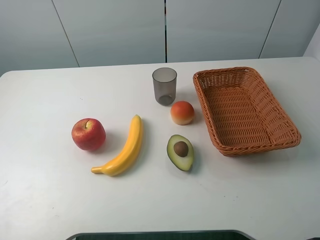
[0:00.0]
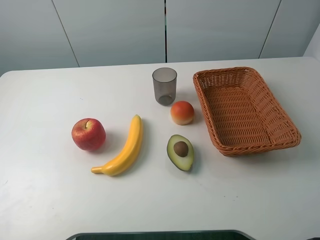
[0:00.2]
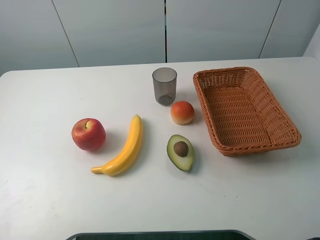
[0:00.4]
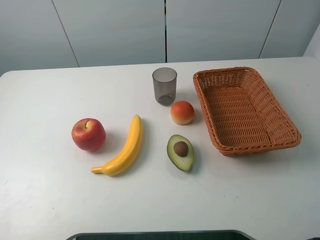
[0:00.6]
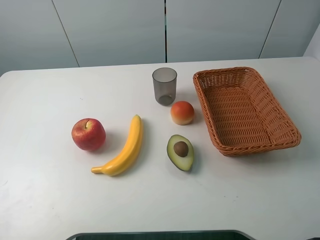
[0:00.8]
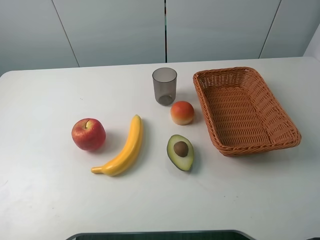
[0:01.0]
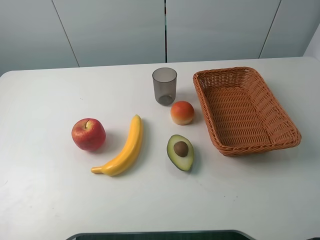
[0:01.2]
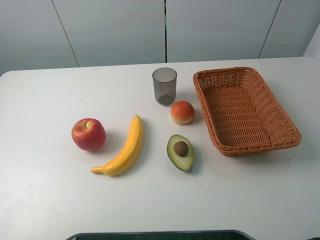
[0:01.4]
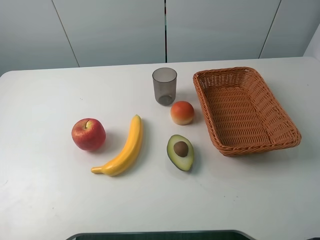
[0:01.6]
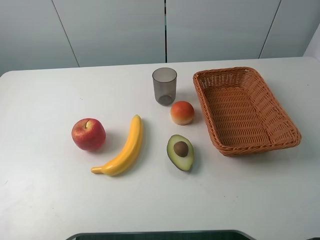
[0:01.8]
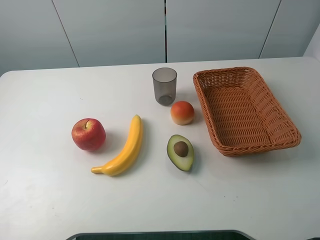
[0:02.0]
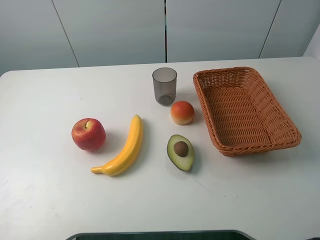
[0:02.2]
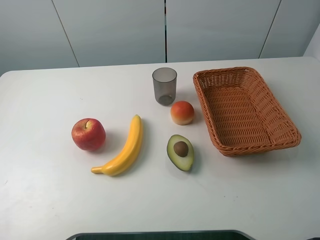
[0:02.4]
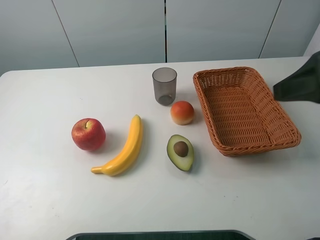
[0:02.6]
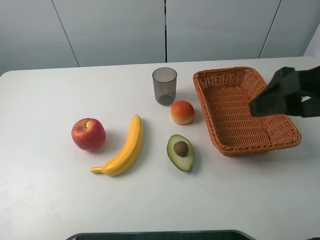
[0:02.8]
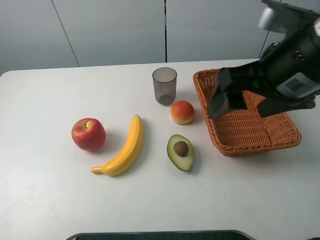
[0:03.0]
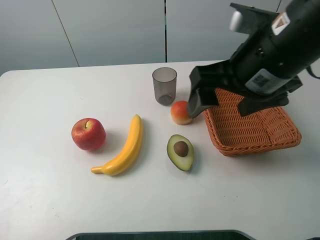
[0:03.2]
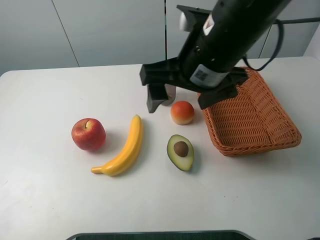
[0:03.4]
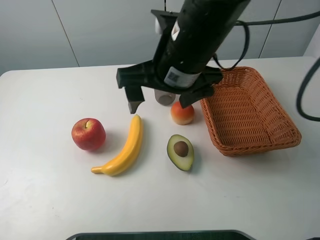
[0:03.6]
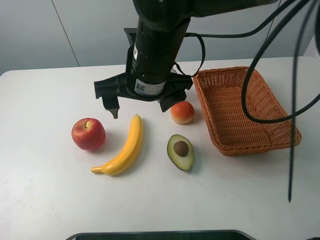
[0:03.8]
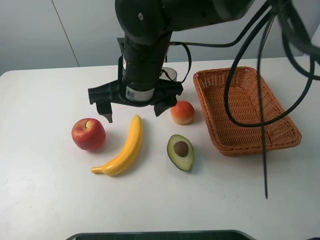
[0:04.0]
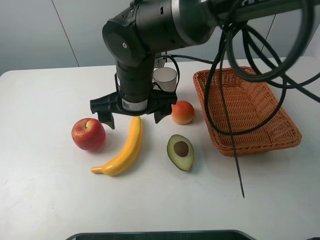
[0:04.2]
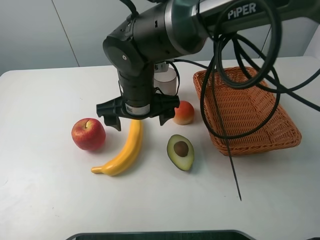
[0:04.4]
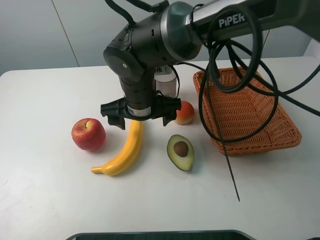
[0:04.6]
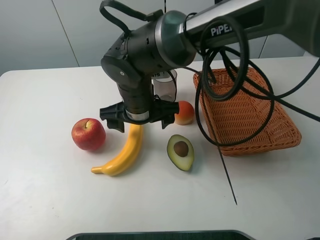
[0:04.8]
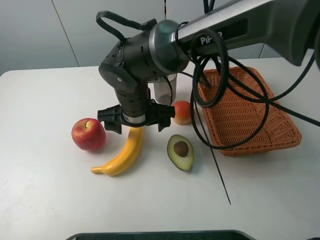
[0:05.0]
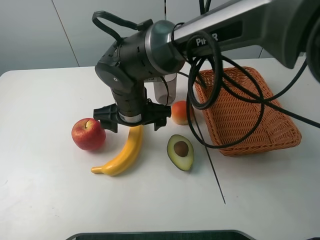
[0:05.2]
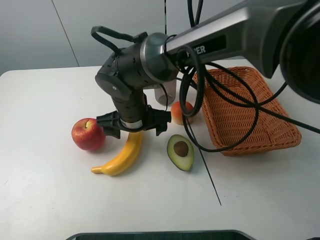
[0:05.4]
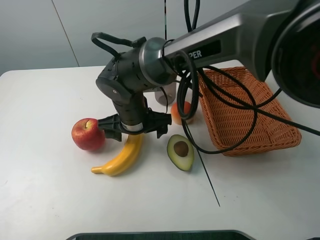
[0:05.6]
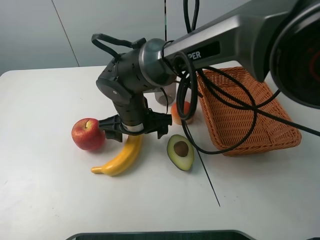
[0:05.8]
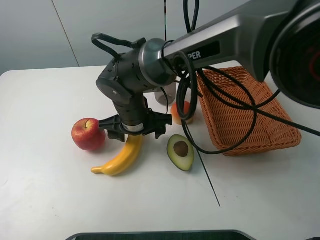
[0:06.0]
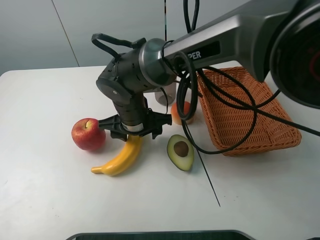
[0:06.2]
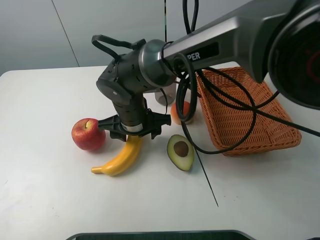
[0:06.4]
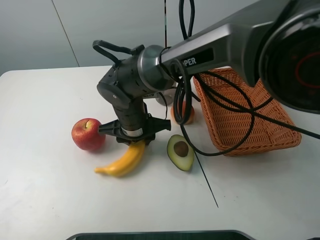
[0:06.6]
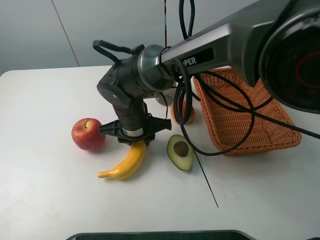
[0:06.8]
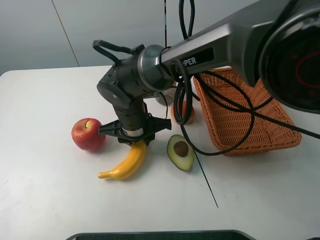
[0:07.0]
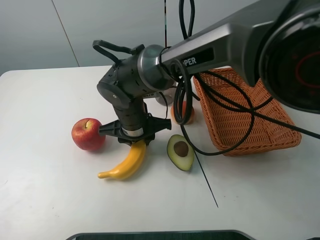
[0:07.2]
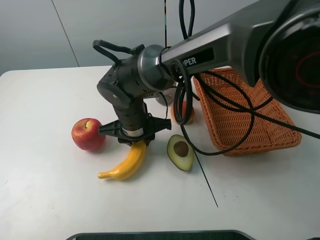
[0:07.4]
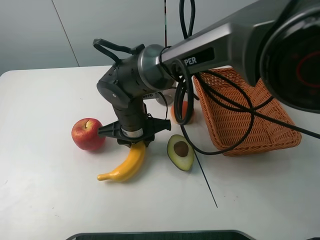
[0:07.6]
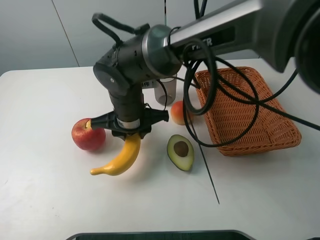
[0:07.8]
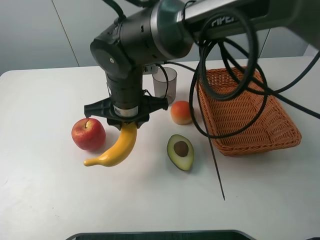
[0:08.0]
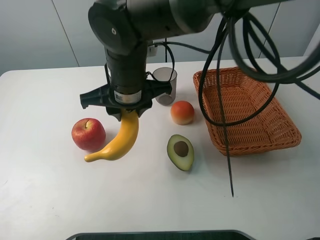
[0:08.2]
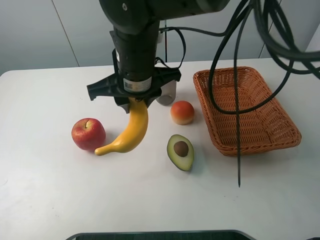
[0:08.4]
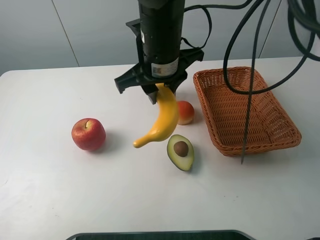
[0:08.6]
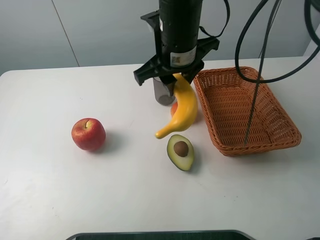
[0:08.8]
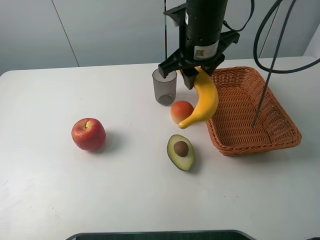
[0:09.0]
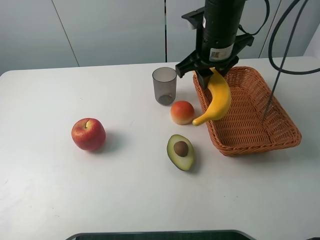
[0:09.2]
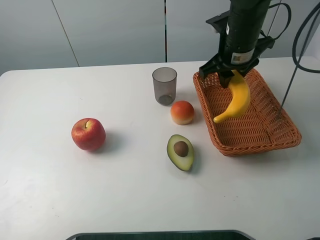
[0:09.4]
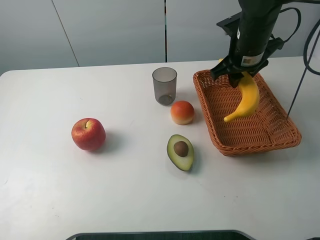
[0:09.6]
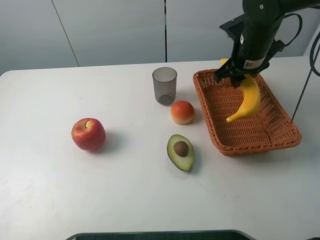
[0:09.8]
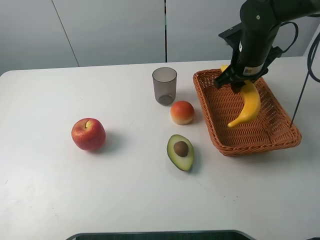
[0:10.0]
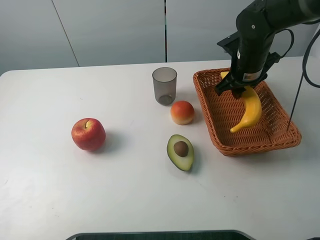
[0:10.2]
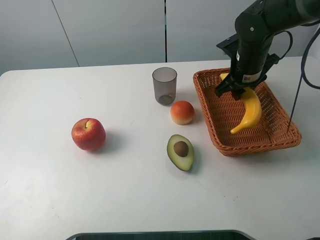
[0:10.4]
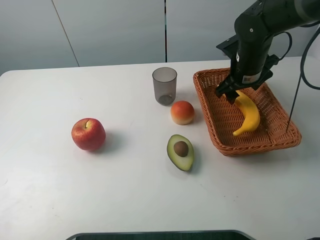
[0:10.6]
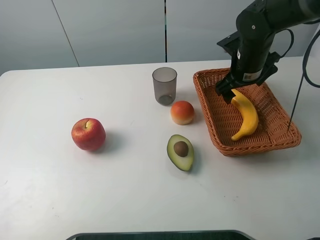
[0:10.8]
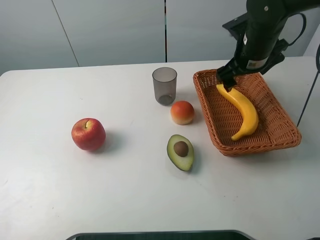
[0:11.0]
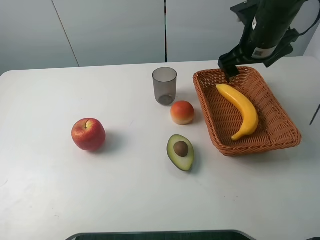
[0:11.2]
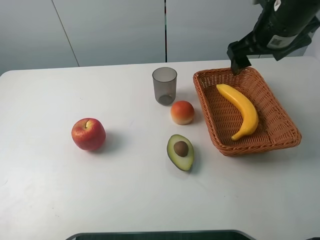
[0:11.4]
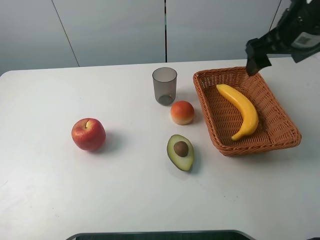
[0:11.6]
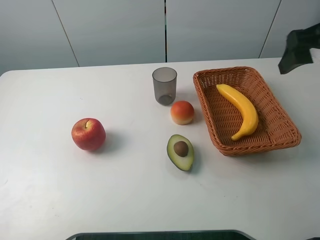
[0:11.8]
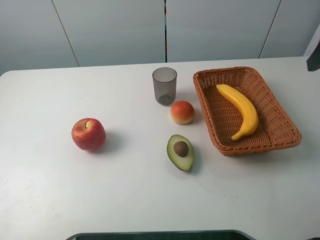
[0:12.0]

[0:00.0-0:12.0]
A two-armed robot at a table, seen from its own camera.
Task of the whole recording: randomly pick up an item from the table and put it in the basket.
Step, 0.0 to 6.6 s: Grasp the banana with the right gripper.
Step, 6.8 to 11.0 s: Place the banana into the basket with the right gripper.
0.0 to 1.6 s: Both grippers stay put.
1.6 to 3.0 s: The right gripper shifts approximately 25 cm forward and to the left.
3.0 to 4.4 s: The right gripper is displaced to the left, downward and forward by some 25 cm.
4.4 to 6.0 s: The right gripper travels downward by roughly 5 cm.
6.0 to 7.6 s: The right gripper closes up.
7.6 to 9.0 s: The right gripper is displaced upward and to the right by roughly 20 cm.
9.0 to 10.4 s: The right gripper travels to the right and downward by some 15 cm.
10.4 to 12.0 s: The right gripper heads upward, backward and to the right, covering some 25 cm, and opens up.

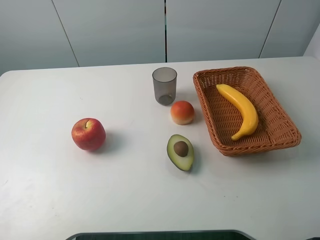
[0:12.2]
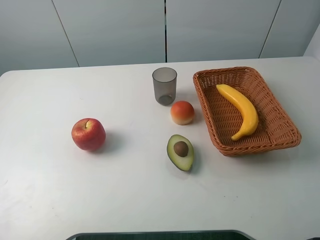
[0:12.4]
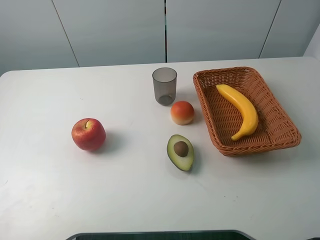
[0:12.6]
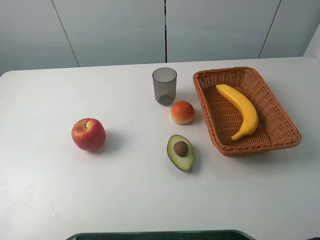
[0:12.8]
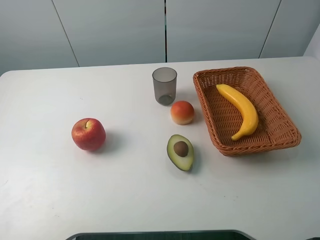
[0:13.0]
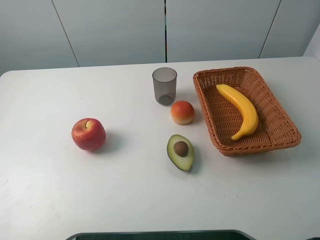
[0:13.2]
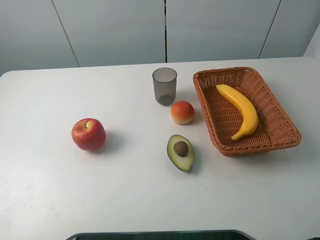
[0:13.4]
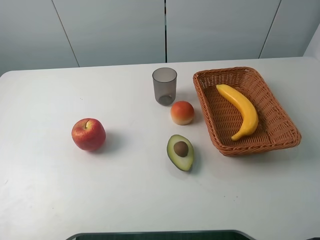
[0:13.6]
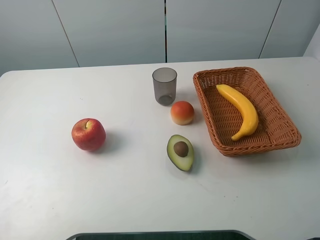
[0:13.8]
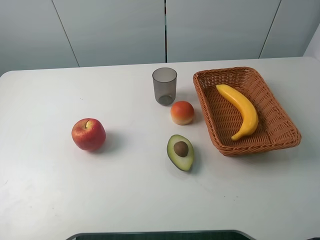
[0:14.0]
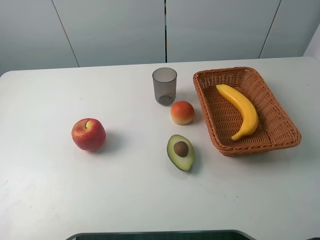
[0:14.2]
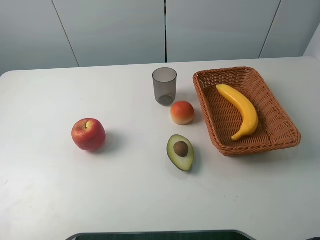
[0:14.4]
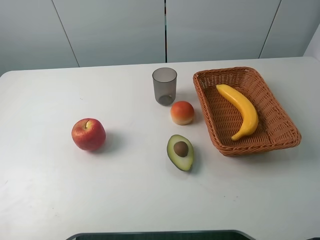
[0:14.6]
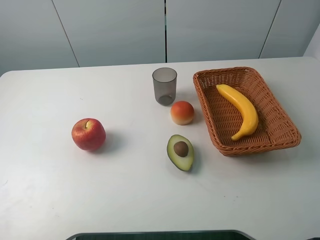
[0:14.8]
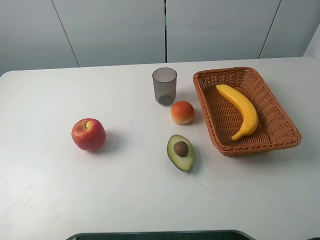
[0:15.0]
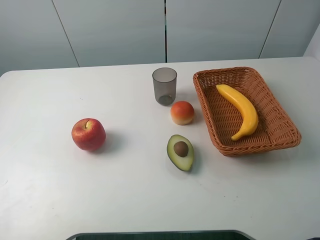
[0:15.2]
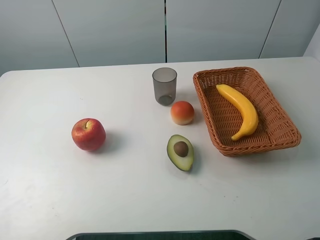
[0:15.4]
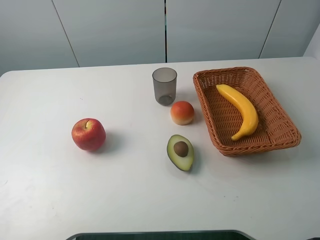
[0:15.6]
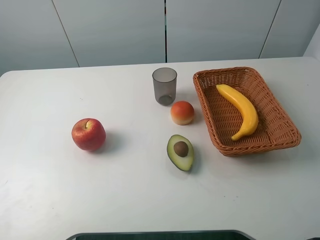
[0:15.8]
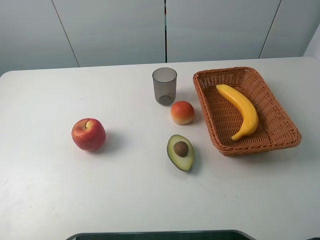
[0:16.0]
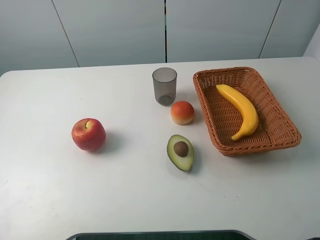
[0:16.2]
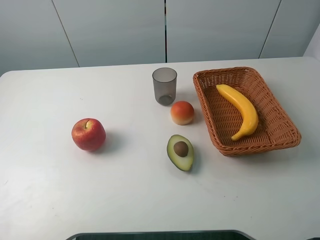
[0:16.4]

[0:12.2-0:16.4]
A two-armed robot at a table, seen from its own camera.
Task of the whole recording: randomly pick up an item from the table and put it in the basket.
15.0 to 16.4 s: Both grippers stay about where they are.

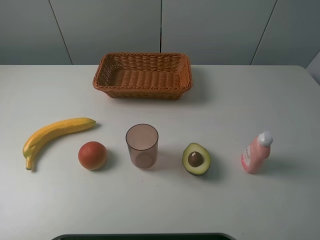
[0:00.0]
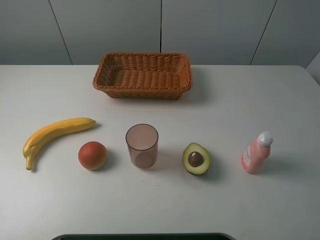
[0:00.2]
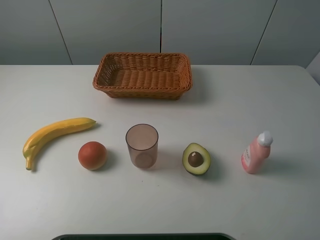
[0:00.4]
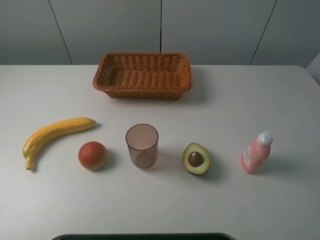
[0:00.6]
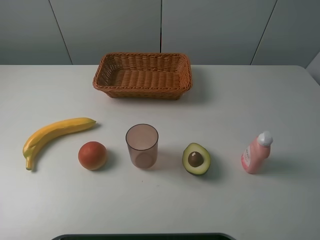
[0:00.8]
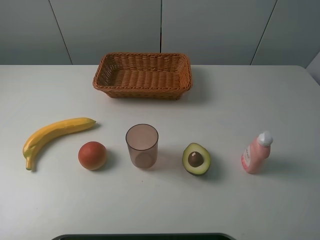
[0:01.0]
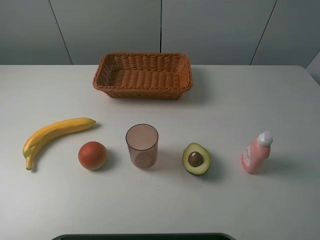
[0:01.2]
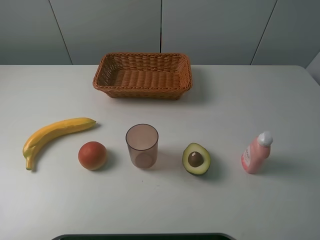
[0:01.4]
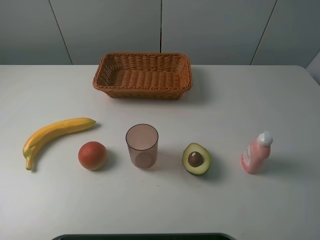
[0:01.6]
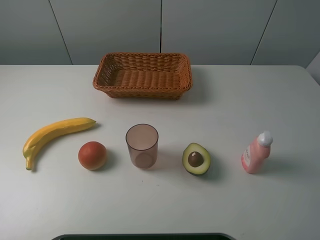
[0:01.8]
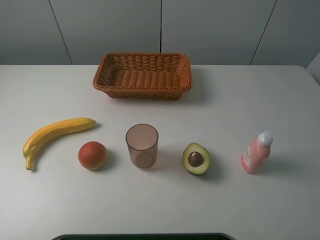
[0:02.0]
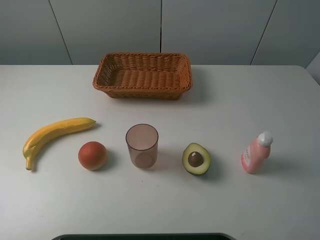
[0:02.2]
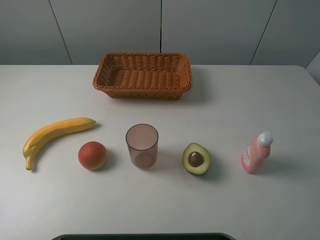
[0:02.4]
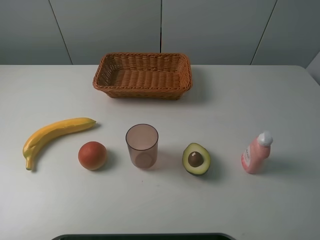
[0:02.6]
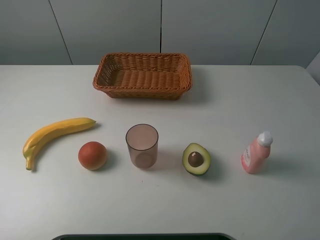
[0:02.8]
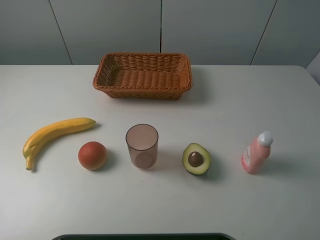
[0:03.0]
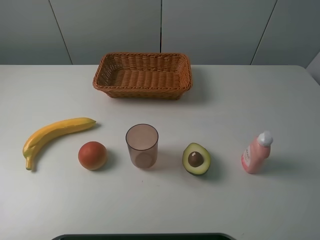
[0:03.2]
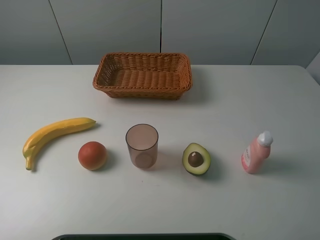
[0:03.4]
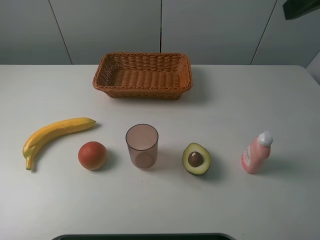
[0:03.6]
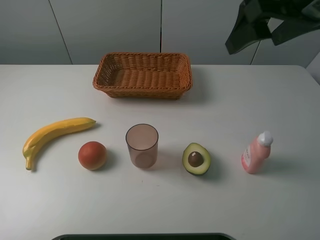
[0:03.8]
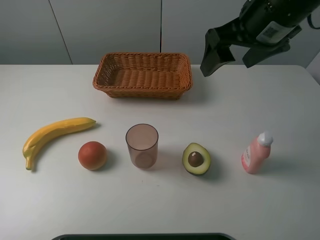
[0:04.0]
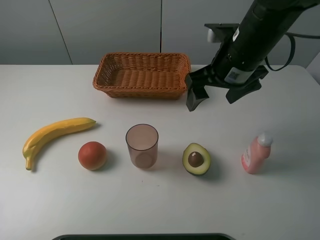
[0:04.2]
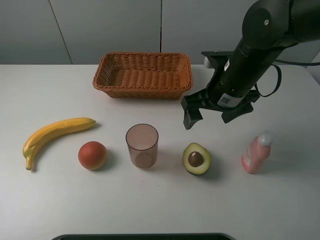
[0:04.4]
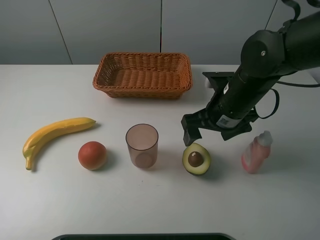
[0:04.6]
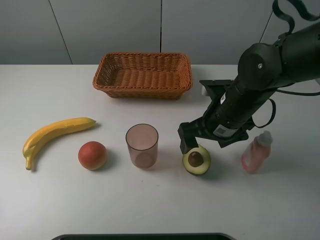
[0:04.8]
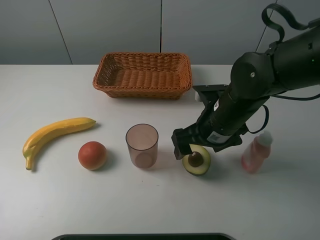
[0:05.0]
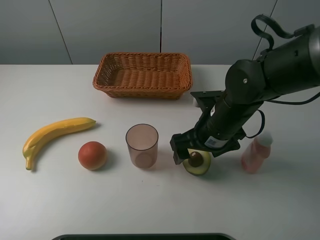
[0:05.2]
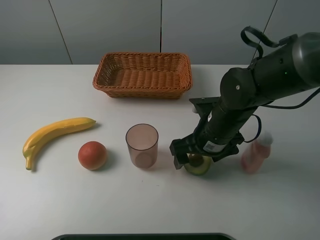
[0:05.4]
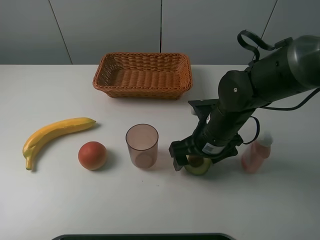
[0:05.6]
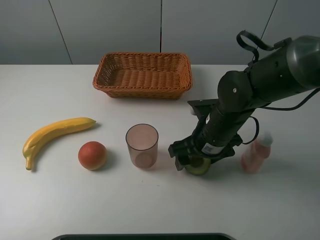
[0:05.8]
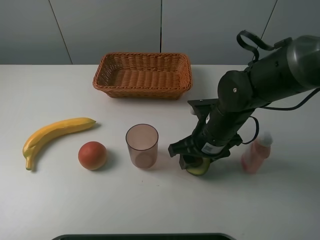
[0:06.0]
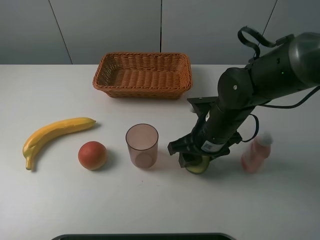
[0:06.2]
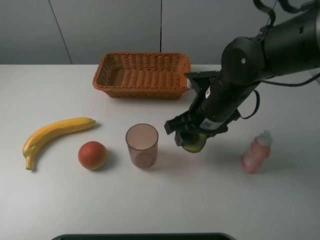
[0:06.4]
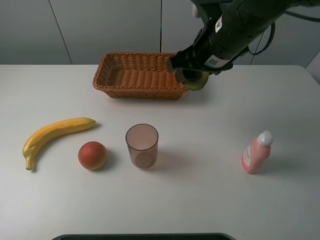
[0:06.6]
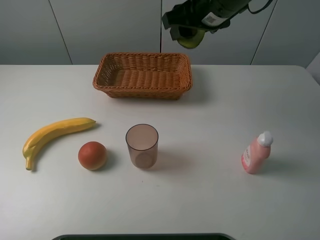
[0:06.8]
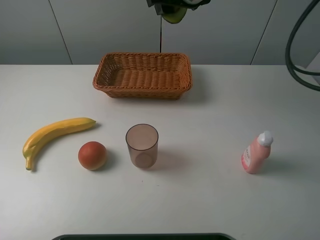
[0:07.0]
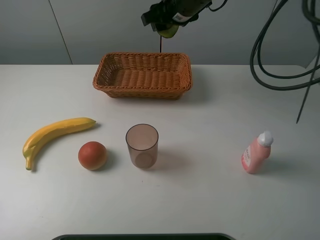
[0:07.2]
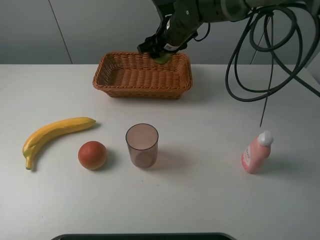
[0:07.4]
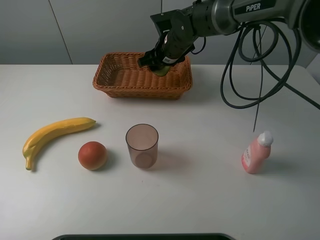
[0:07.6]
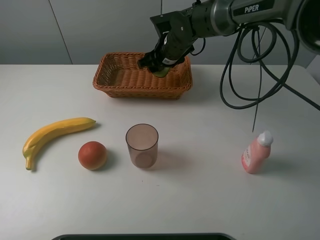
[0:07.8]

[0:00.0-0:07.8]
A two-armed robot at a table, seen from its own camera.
Task of the whole recording: randomly pick up an item from the table and put it in the basket.
Step, 0.0 to 5.8 s: Grasp the avocado with the right gripper.
0.0 to 1.6 s: Neither gripper changes place.
3.2 to 4.6 s: The right gripper is displaced downward, to the left and forward by roughly 35 cm.
4.6 to 6.2 s: The right gripper closes up.
6.2 to 7.8 s: The right gripper shifts about 20 cm forward.
